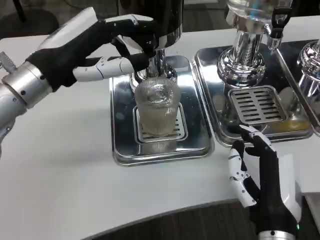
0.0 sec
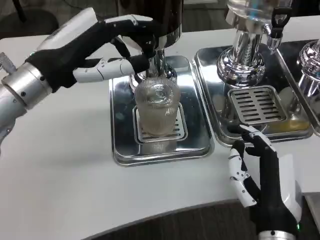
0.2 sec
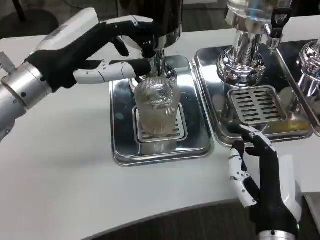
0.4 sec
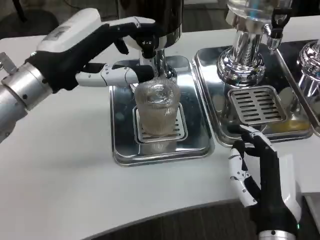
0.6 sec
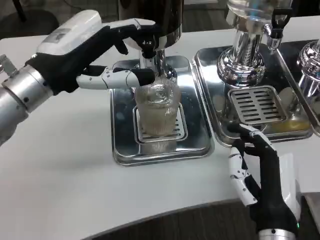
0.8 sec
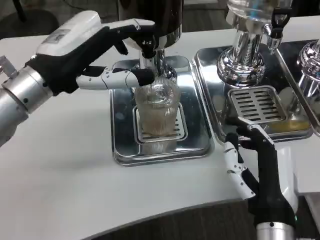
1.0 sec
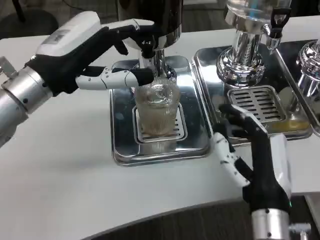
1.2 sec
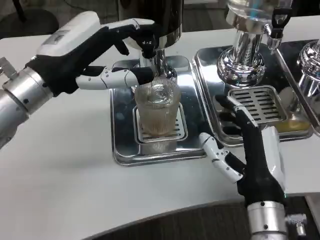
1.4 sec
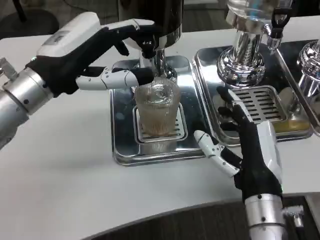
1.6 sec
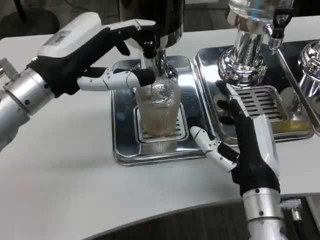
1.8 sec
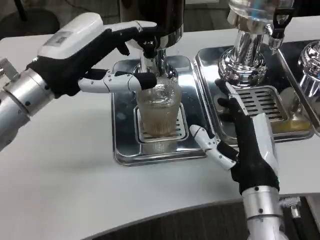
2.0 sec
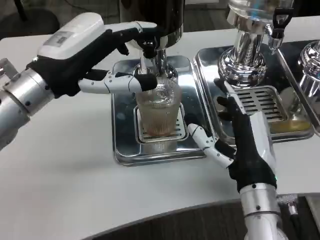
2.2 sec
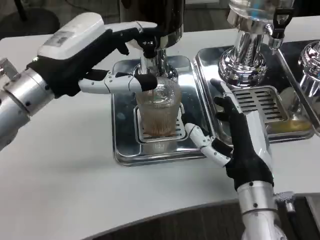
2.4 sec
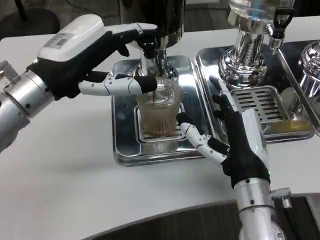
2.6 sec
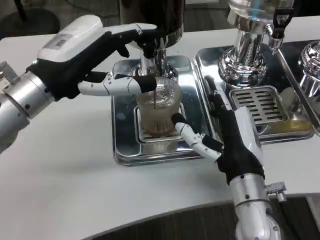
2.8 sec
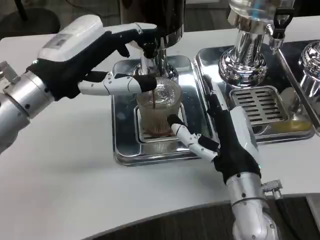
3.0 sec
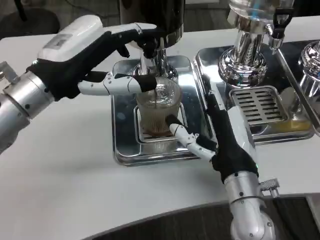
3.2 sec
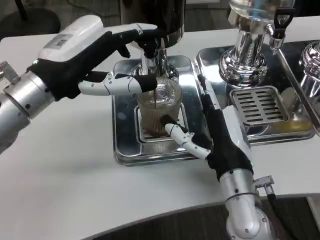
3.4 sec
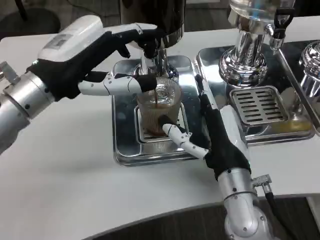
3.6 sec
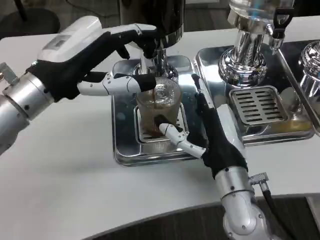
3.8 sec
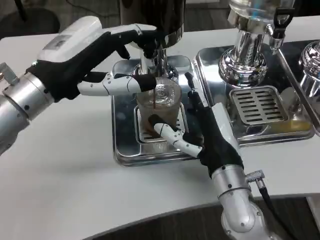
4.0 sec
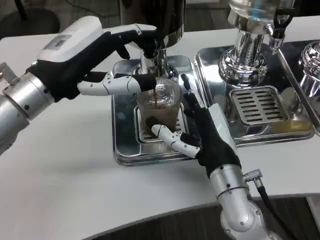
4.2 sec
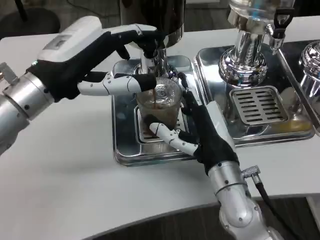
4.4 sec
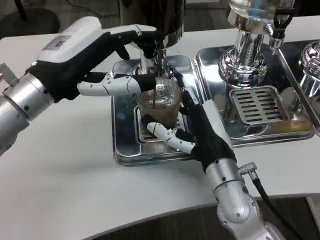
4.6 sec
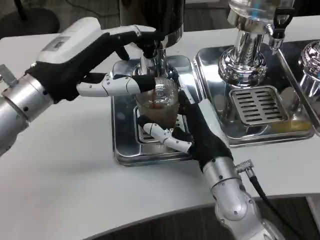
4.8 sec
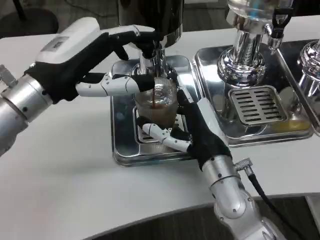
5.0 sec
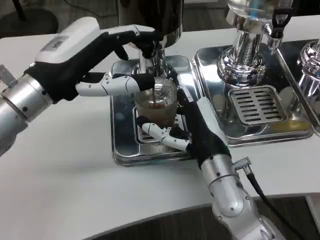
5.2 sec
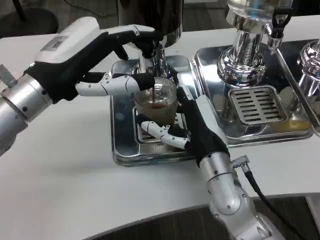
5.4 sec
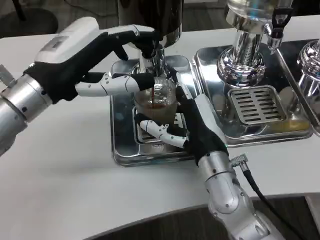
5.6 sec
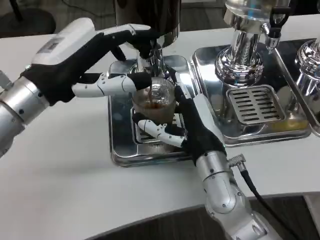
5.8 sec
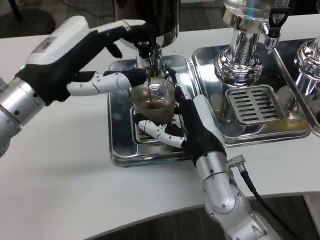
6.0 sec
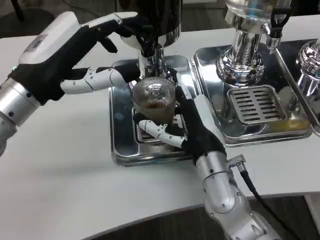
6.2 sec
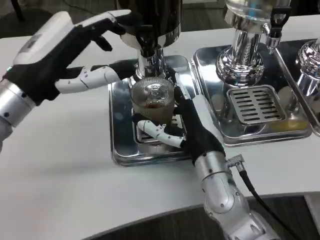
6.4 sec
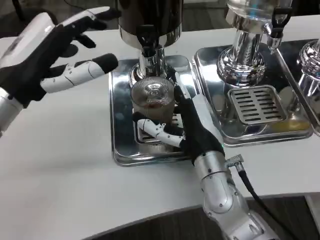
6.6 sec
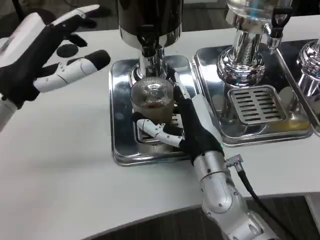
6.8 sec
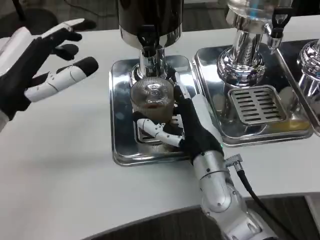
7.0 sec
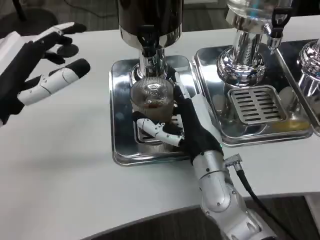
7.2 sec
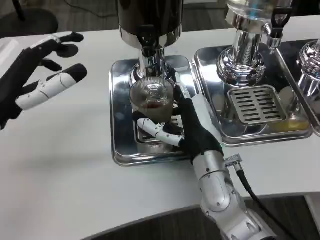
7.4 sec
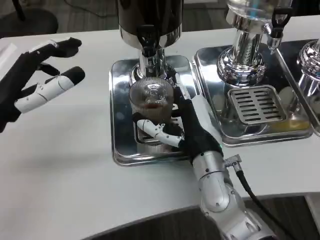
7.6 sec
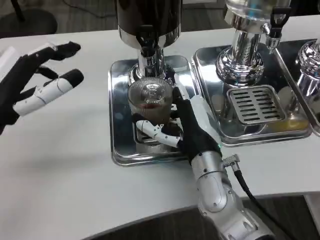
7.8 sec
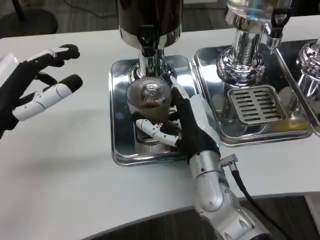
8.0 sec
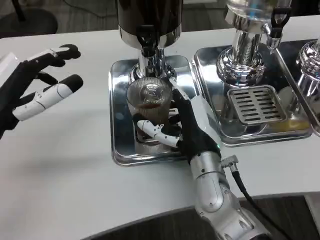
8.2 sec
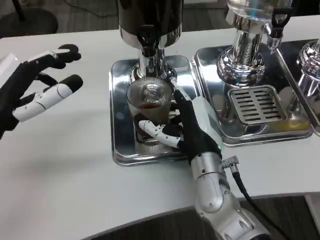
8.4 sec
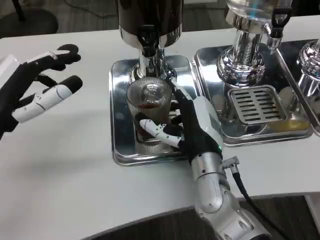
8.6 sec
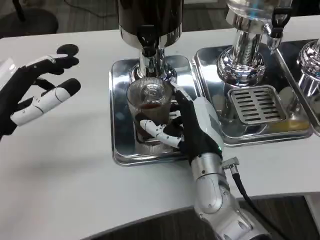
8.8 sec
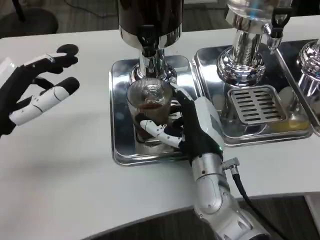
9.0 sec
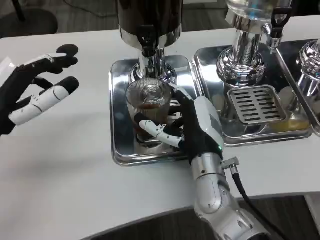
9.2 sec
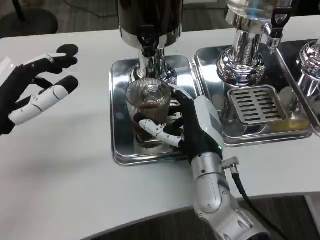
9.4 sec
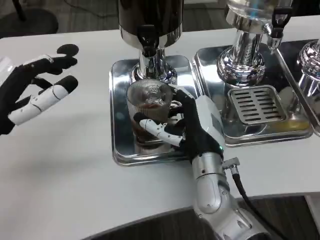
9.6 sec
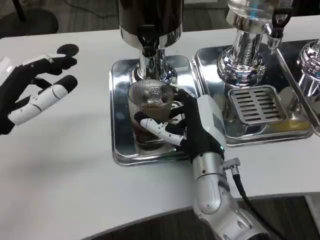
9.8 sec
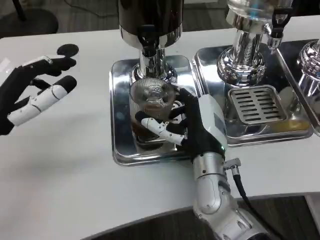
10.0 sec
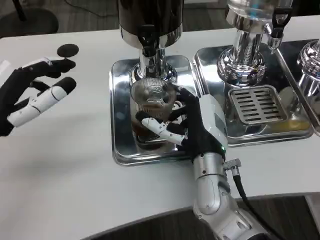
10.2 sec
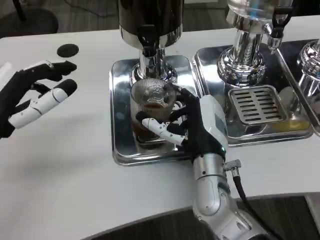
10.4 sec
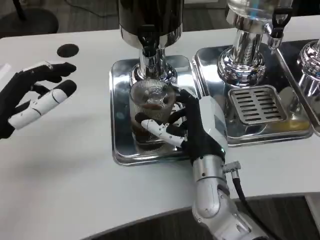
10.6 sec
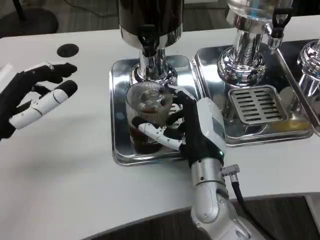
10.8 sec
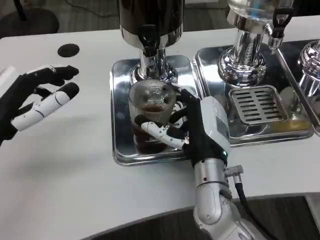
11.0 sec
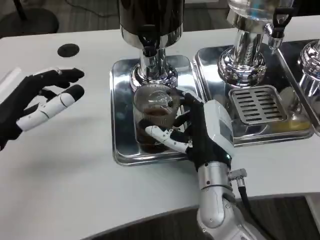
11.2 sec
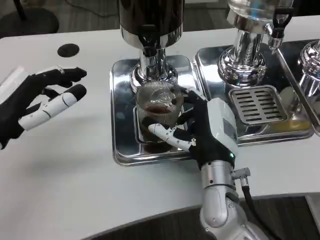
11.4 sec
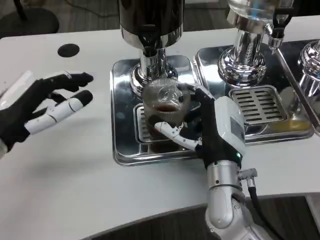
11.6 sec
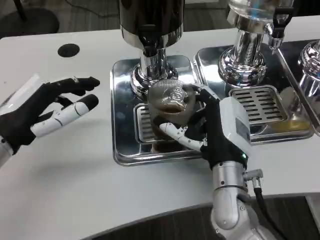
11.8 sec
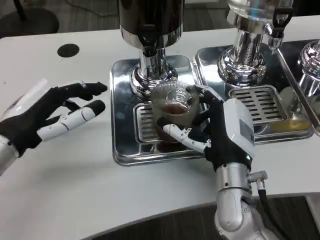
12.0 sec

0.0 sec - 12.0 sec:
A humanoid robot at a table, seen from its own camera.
Task of the whole recording: Grasp the cup under the faucet to collect the drink, then remove the cup.
0.0 sec - 1.6 sec: There are only small adjustments of the hands.
3.0 sec - 4.4 sec: The hands move only a little.
6.0 sec - 7.6 sec: The left hand ends up about 5 cm from where it was.
7.6 sec - 9.0 sec: There are only small adjustments of the hands.
9.0 sec - 10.4 sec: Neither hand changes place.

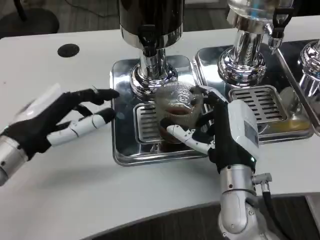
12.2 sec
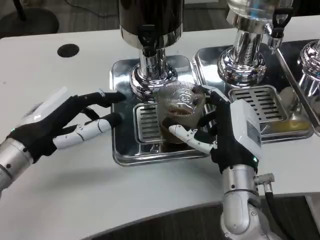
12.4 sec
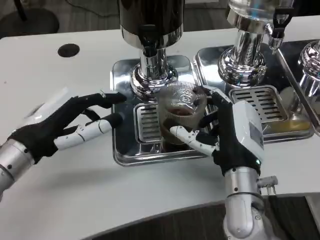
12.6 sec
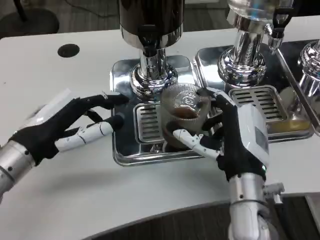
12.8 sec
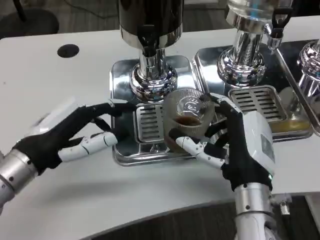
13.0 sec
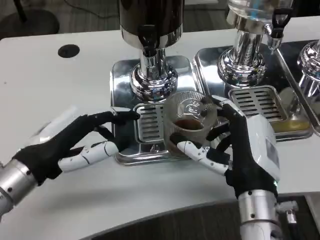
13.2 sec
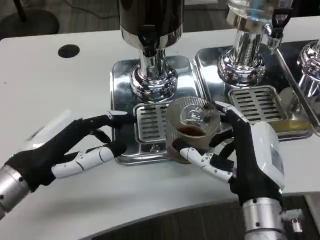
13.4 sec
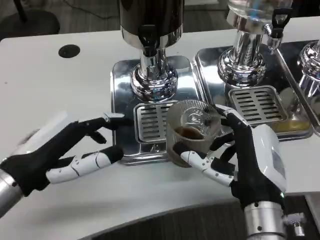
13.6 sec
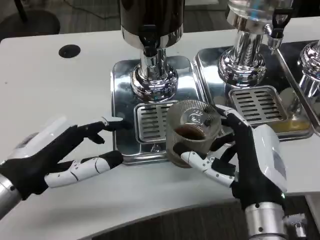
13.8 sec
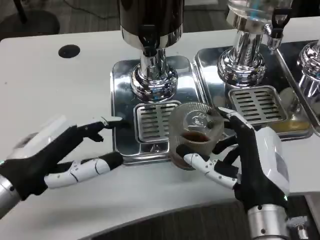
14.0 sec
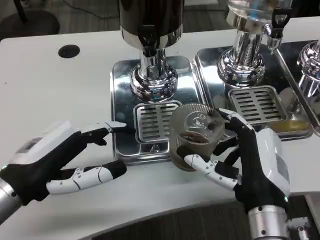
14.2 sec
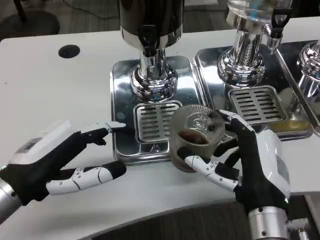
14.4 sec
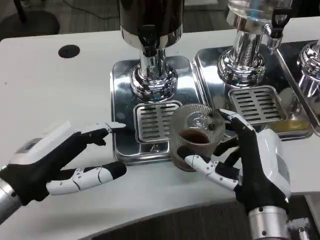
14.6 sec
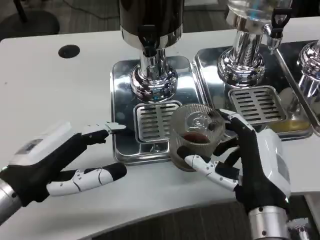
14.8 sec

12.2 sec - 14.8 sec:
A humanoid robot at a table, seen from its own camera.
Task of the whole recording: Grasp the cup under the faucet to collect the drink, then remove the cup.
12.2 sec - 13.4 sec: The right hand shifts about 5 cm backward.

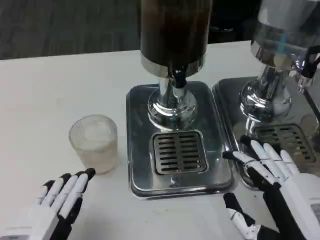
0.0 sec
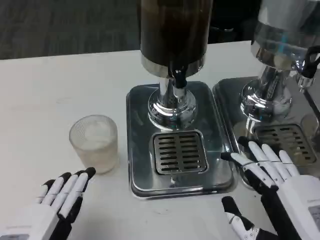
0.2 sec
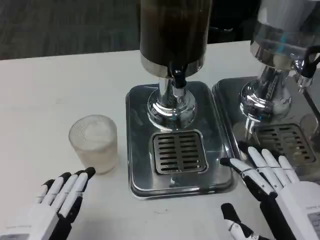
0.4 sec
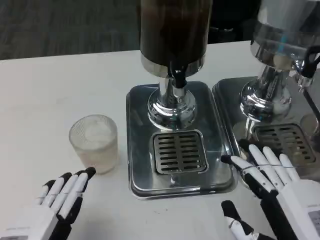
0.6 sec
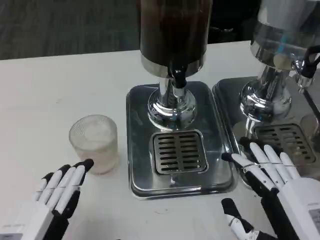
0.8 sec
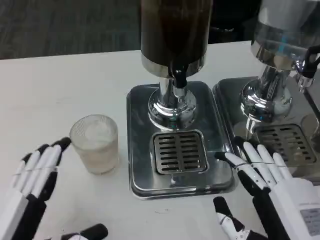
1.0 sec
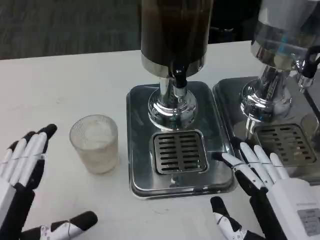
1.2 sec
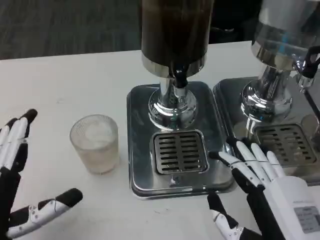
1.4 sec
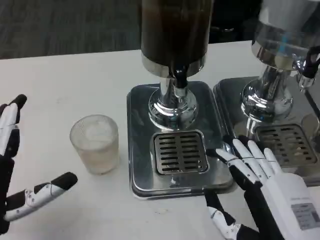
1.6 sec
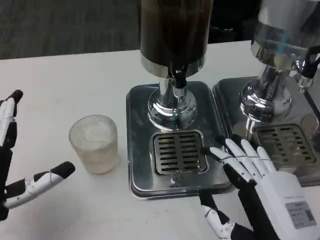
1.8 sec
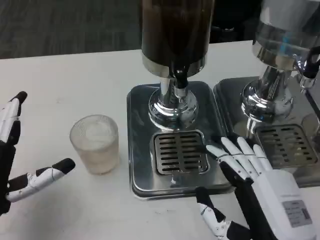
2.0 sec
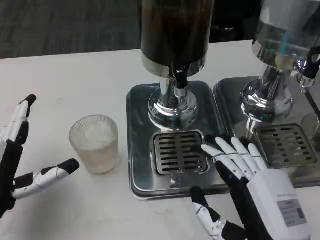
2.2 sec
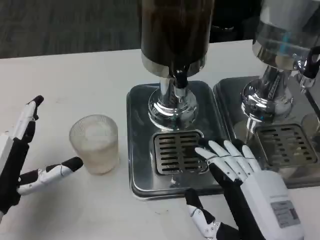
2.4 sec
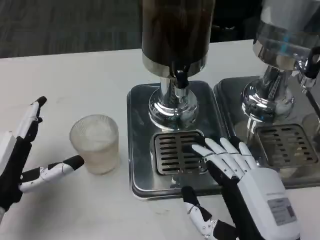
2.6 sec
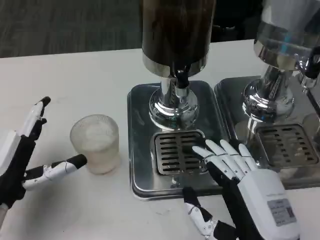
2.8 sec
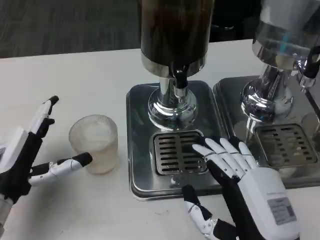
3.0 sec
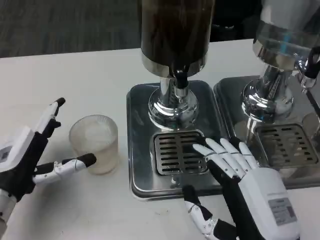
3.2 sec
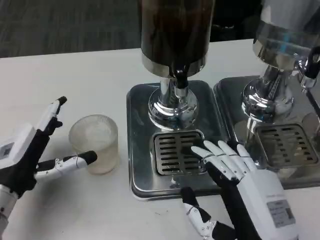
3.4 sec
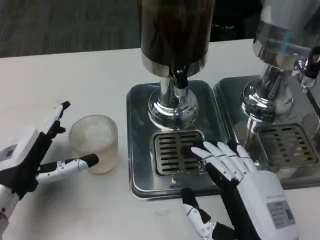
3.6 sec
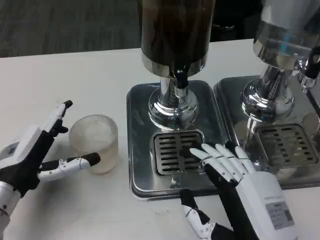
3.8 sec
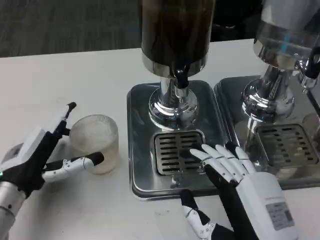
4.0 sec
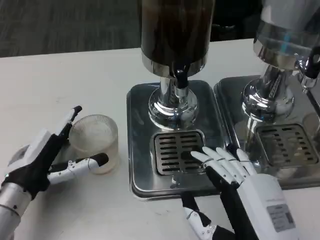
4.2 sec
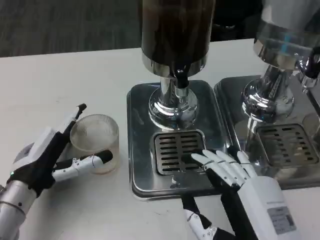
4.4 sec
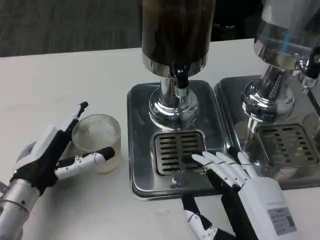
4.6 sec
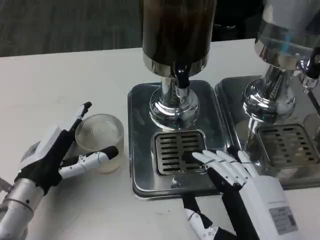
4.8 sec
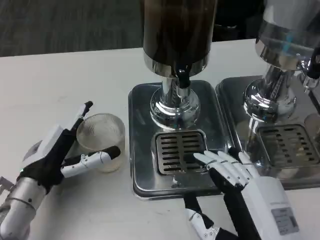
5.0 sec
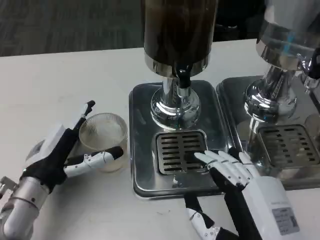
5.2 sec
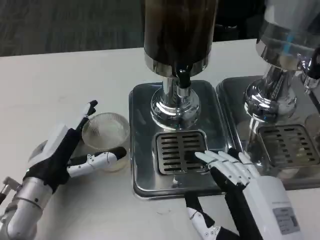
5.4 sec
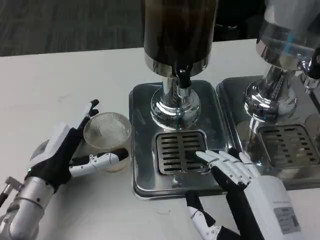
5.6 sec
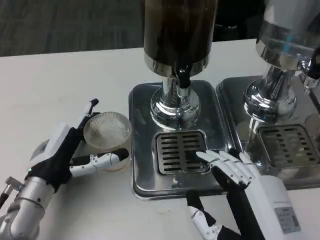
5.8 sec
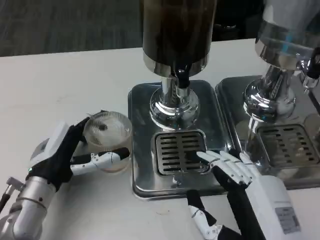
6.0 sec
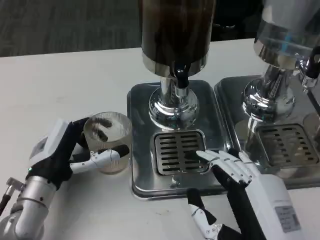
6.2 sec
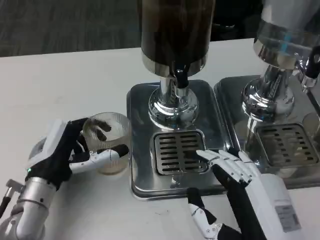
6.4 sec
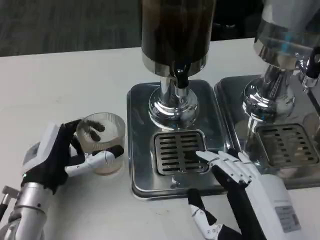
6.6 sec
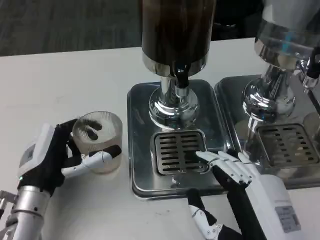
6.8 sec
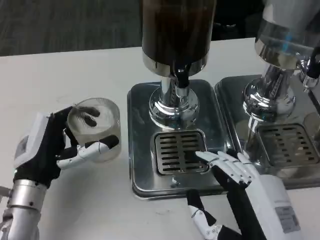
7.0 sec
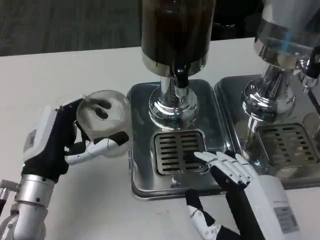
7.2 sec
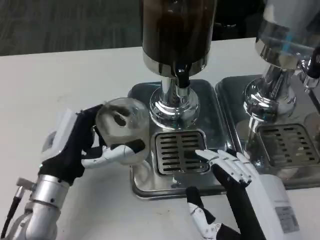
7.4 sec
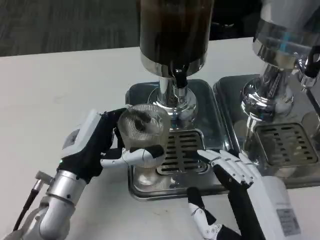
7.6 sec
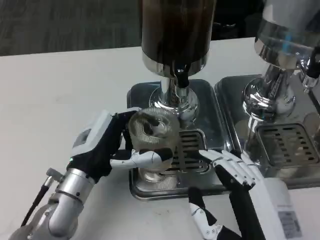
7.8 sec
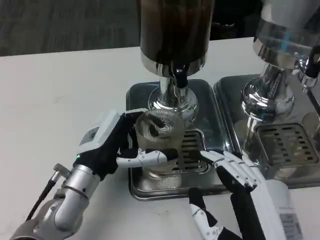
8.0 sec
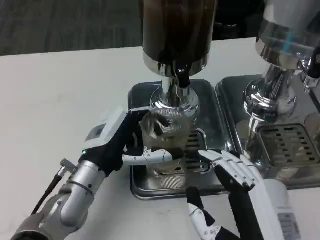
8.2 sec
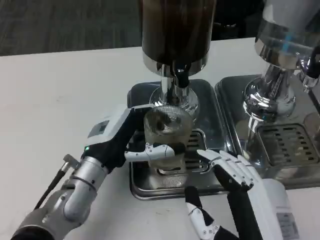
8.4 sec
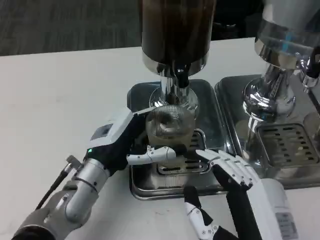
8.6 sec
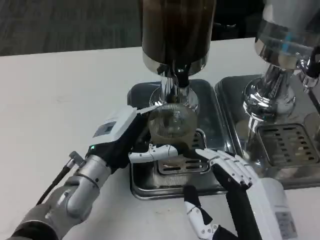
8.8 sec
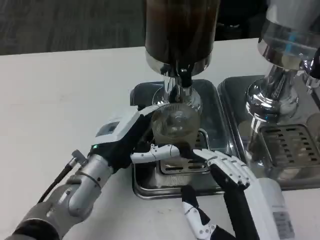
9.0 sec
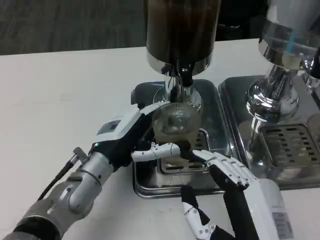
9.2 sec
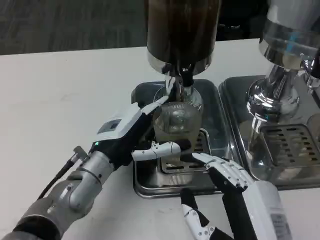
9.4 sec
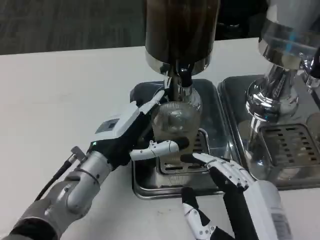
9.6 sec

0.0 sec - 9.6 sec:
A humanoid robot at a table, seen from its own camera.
Task of the whole recording: Grasp the cup under the faucet to collect the drink, then remove the cup.
0.0 sec - 1.6 sec: The left hand travels forward by some 5 cm.
1.6 sec - 3.2 sec: The left hand shifts roughly 10 cm forward.
4.8 sec - 6.4 sec: The hands make only small movements.
6.4 sec - 8.0 sec: The left hand shifts roughly 5 cm to the right.
